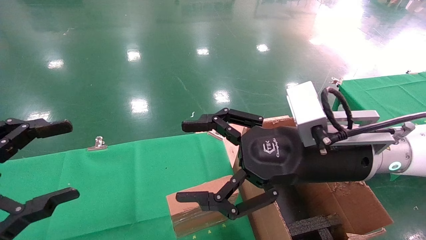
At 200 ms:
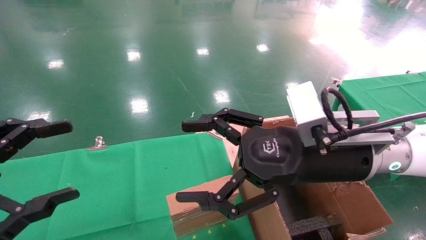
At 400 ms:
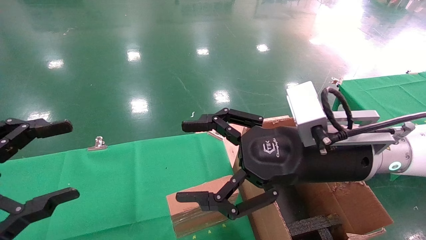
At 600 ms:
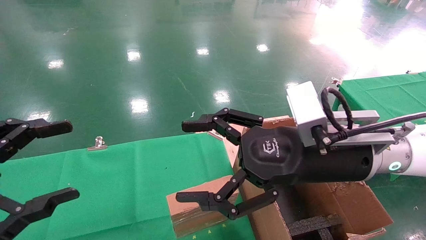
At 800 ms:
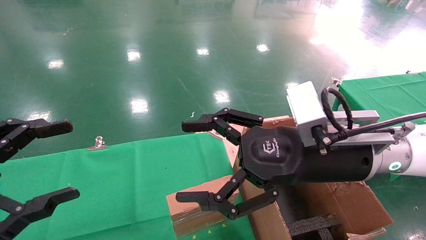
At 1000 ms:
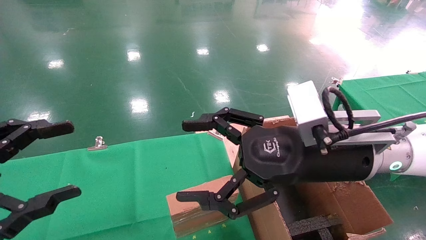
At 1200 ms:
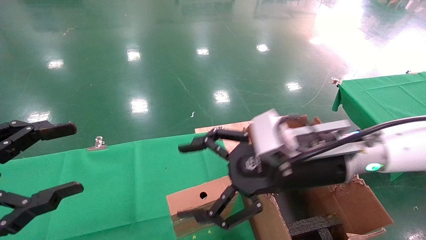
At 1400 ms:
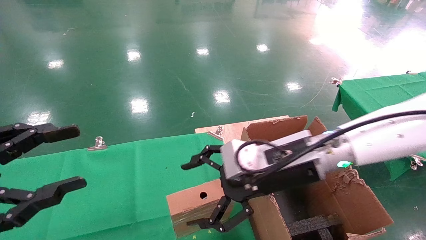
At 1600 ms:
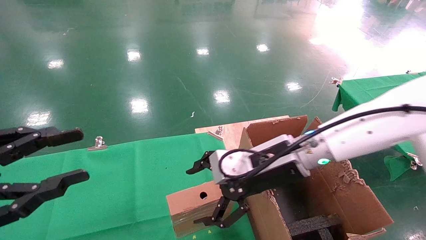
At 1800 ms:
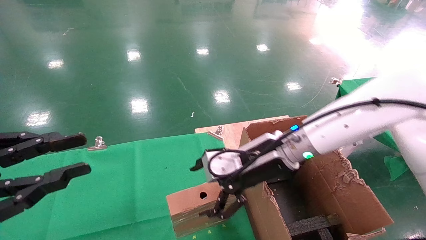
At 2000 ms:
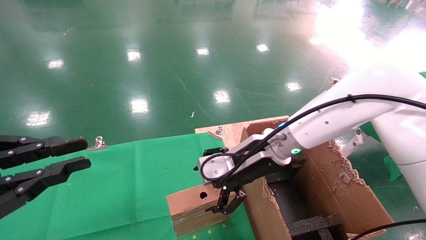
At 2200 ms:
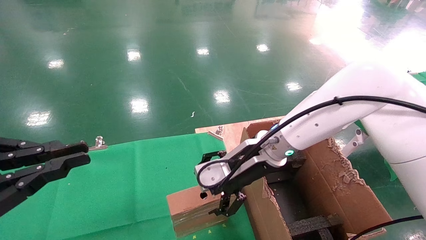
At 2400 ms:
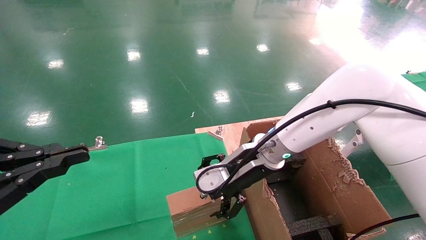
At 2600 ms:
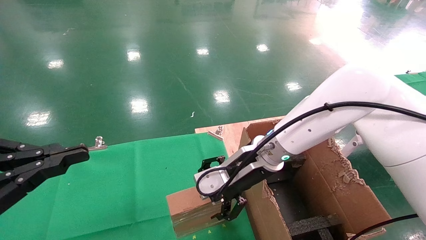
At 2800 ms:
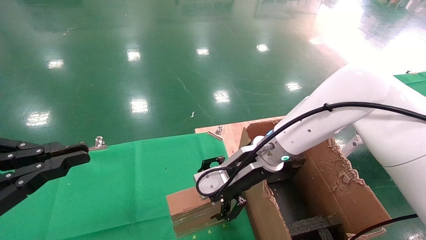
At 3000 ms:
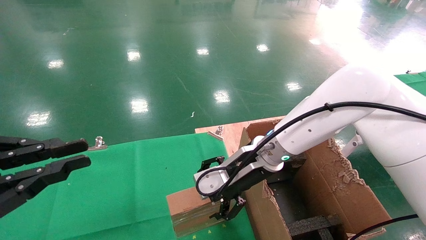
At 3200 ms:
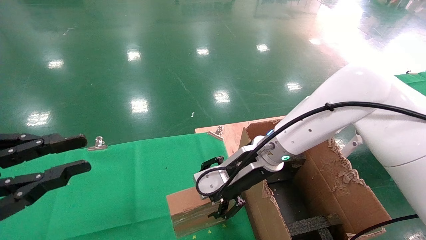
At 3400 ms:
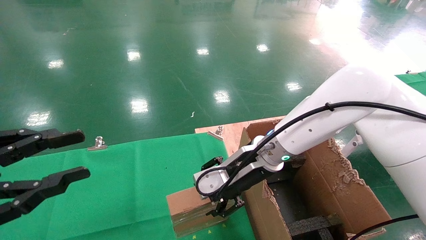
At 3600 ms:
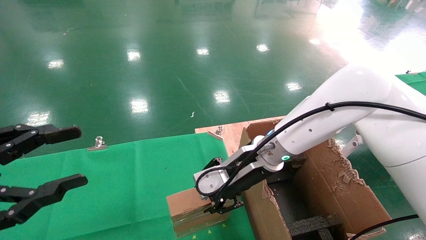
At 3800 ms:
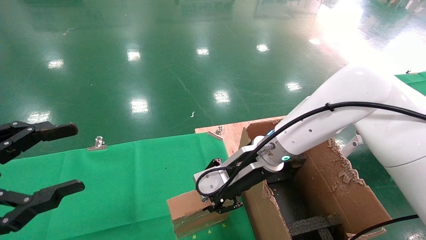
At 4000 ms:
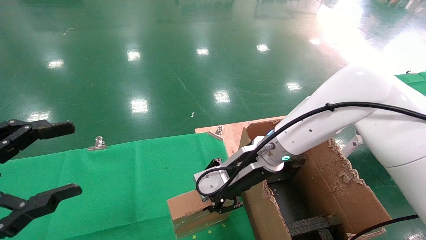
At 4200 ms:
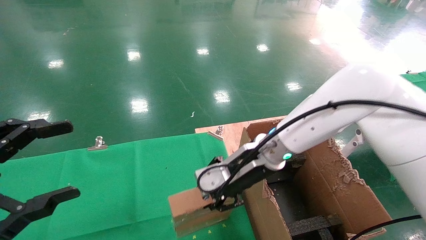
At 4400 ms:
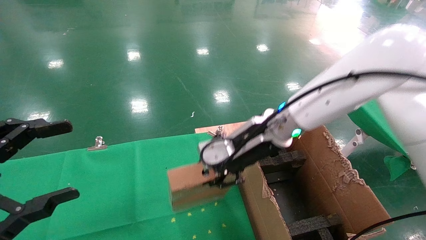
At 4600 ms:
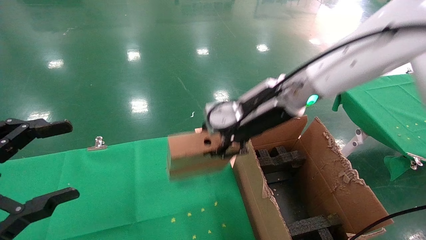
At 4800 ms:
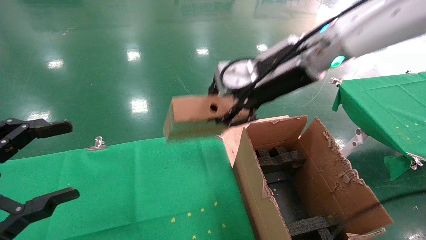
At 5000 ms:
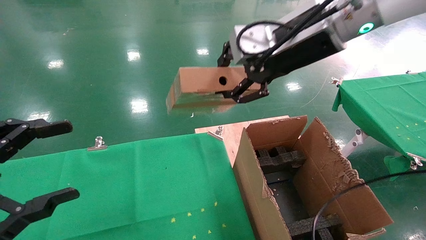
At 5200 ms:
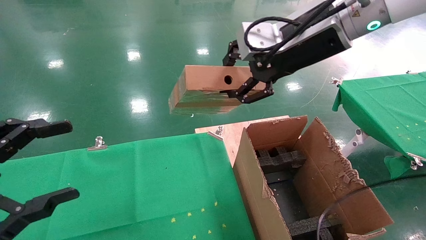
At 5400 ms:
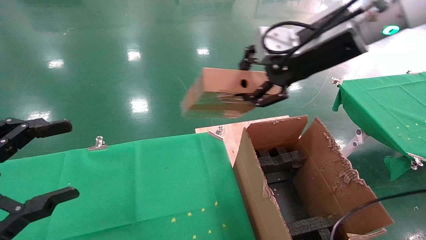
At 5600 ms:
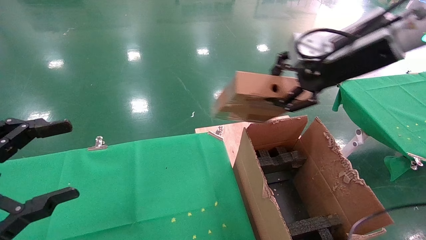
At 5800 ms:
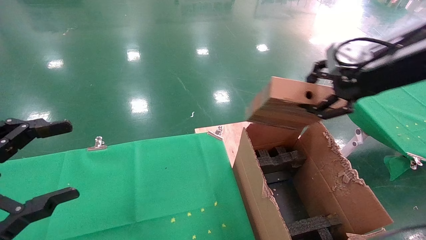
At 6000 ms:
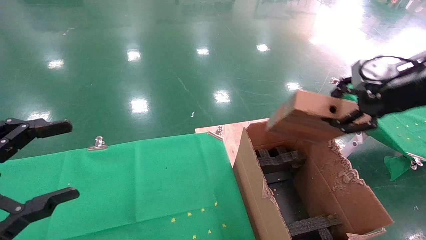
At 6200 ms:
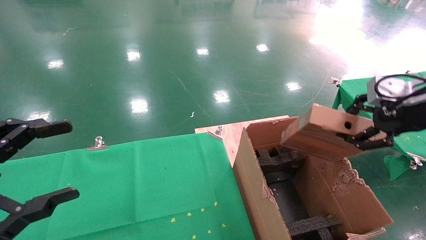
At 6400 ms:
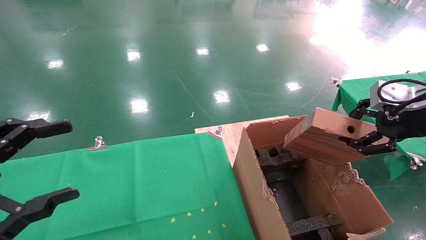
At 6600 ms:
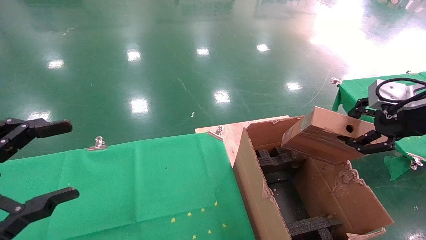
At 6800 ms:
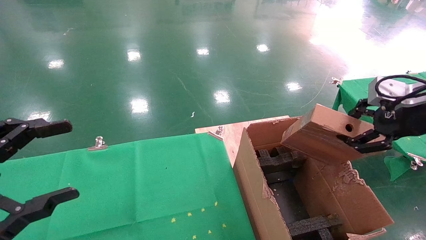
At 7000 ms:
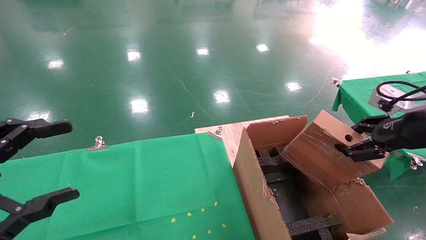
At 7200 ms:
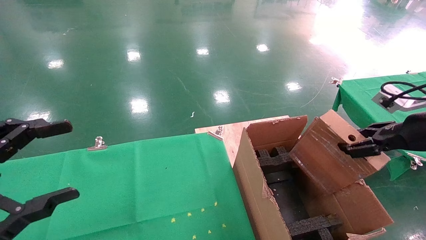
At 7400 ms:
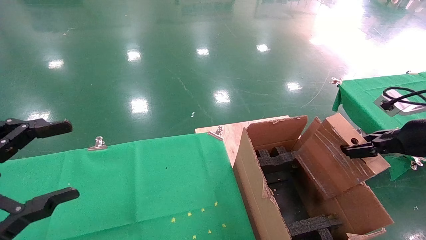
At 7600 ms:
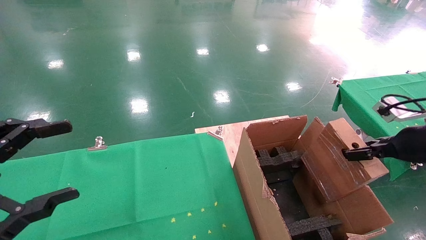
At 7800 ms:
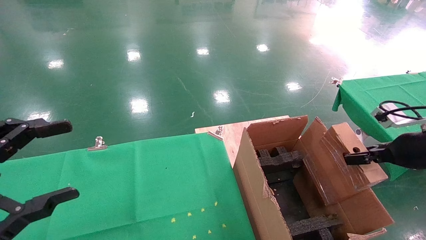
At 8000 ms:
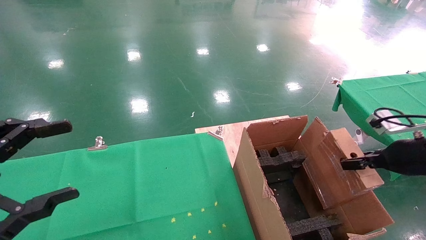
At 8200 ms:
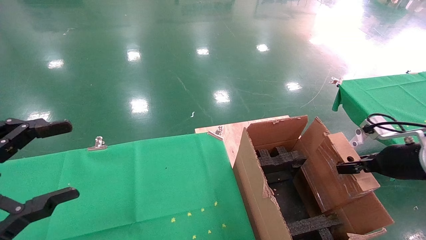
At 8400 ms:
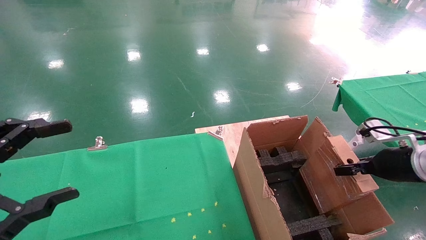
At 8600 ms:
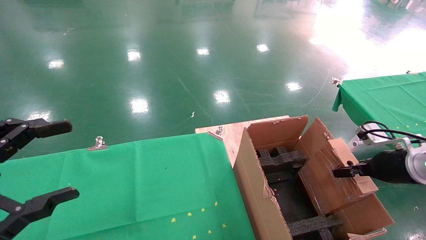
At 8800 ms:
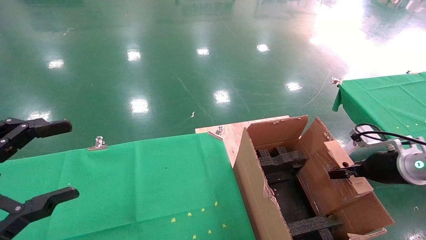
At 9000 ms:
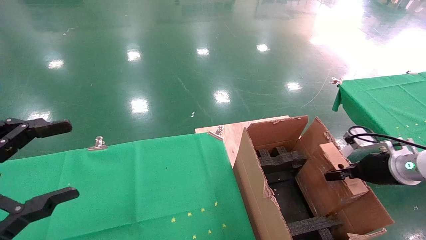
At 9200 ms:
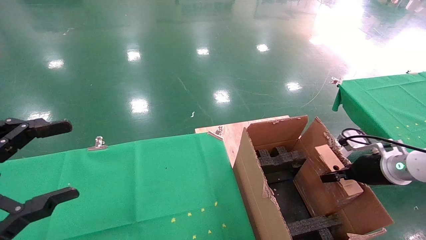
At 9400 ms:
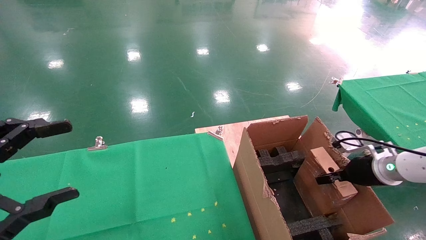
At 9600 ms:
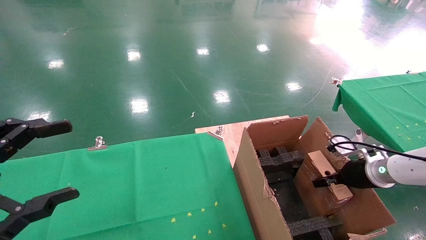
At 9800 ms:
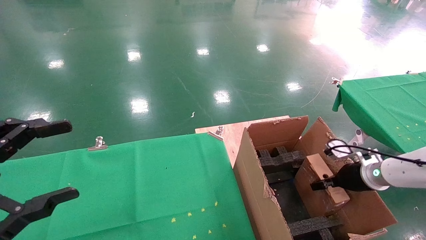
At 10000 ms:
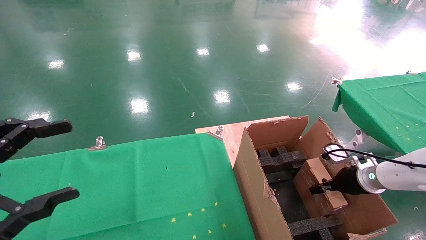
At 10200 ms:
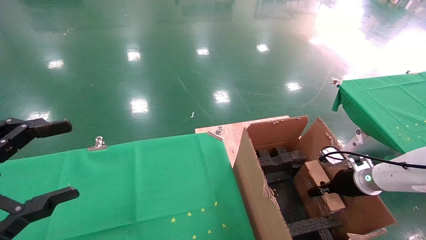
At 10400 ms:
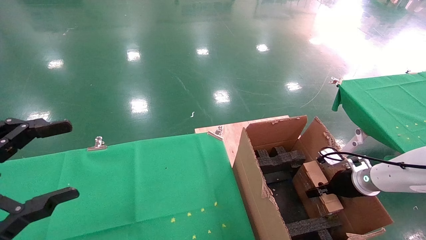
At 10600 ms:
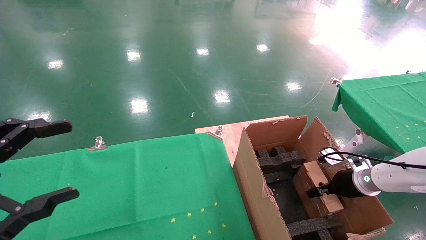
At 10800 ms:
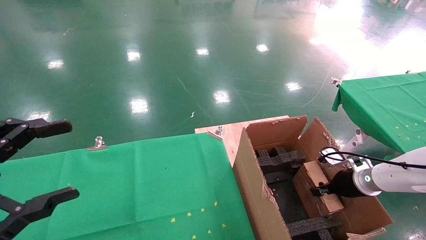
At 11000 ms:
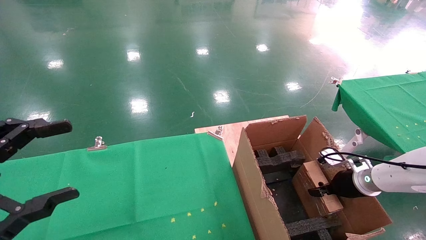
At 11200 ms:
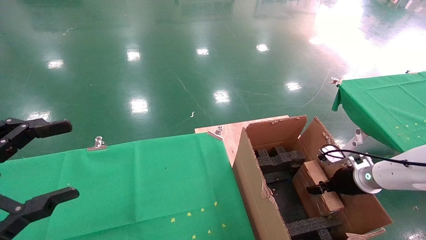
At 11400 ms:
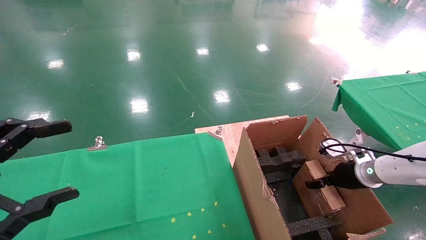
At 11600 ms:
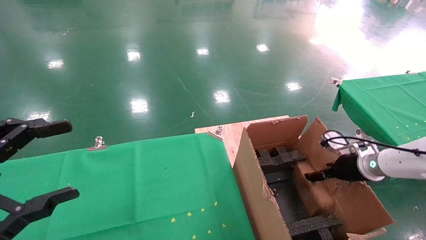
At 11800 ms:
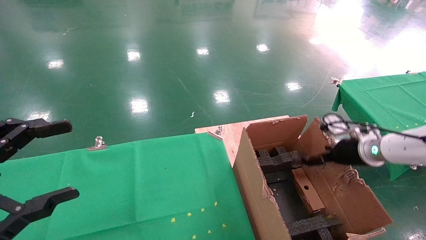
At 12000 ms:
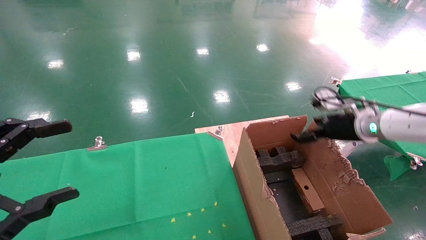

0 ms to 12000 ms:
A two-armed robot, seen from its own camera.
Task of the whole recording: using a robotic arm to pick up a cardboard box and palace it the carton.
Step, 1200 ms to 3800 ms: Pick up the mouse and the power cord paper box.
0 ms to 1600 ms: The left gripper closes its fingers. Meanwhile the right gripper is displaced forward by about 10 cm.
1600 ms to 3000 ms: The left gripper closes up; the right gripper ends up about 5 cm from where it was.
3000 ms to 4400 ms: The left gripper opens up. The right gripper shifts about 5 cm upward, and closes.
4400 ms to 6000 ms: The right gripper is displaced to the right by about 25 cm.
6000 ms to 7600 ms: The right gripper shifts some 15 cm downward and to the right.
7600 ms to 9000 ms: The right gripper goes some 10 cm downward and forward.
9000 ms to 10400 ms: The right gripper is displaced downward and forward by roughly 10 cm.
10400 ms to 12000 ms: The right gripper heads upward, covering approximately 15 cm, and opens.

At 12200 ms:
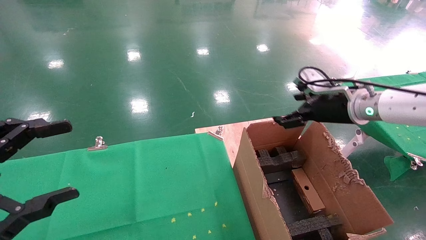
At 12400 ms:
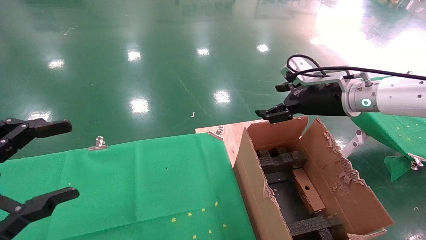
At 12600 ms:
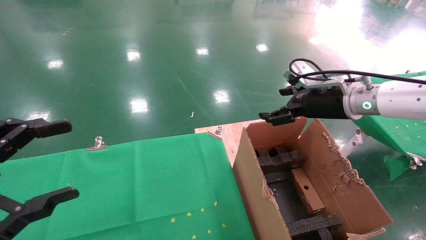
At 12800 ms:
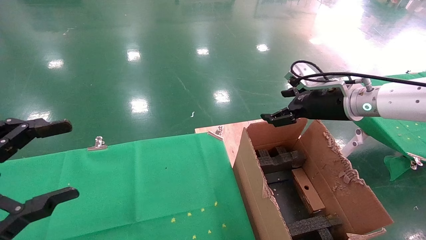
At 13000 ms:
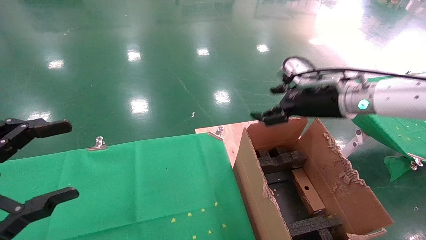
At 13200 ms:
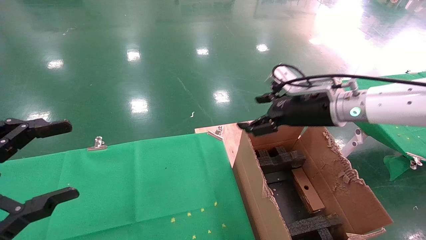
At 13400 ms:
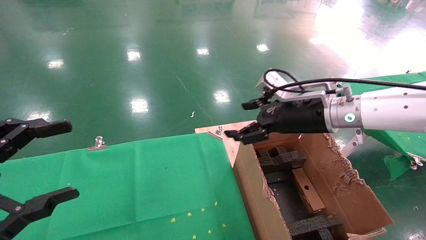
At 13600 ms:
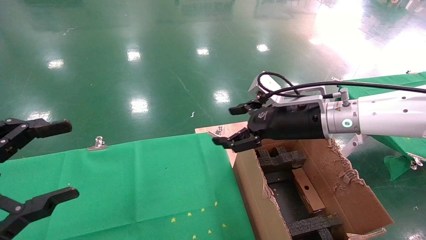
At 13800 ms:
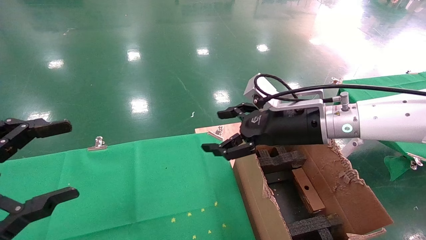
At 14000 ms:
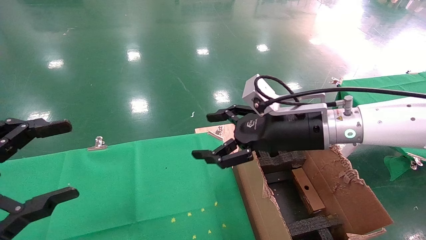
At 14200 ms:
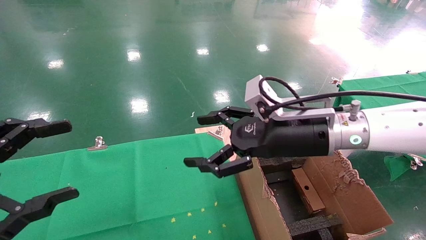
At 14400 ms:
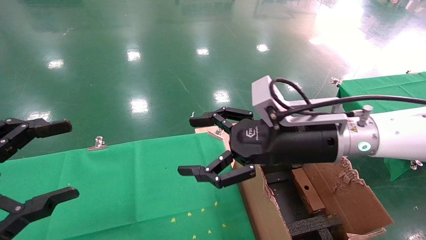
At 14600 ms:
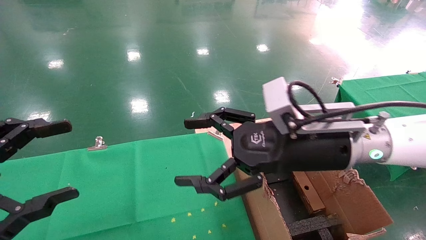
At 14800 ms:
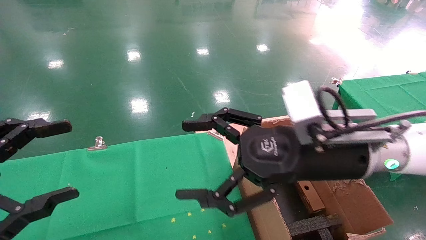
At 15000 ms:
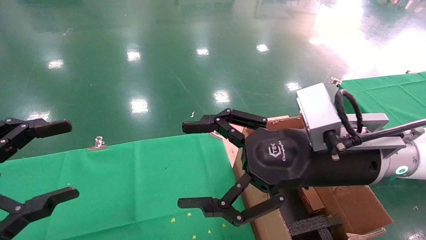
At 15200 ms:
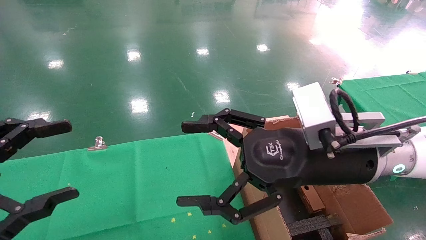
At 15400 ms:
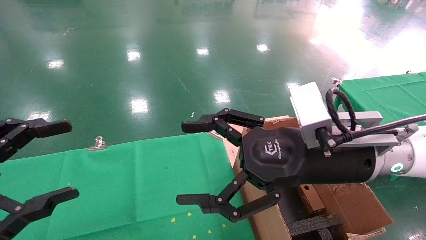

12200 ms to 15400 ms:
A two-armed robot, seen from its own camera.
Task of the whole recording: using a robotic arm to pick up a cardboard box and palace it the carton.
12200 ms to 13800 ms: The right gripper heads to the left, covering approximately 15 cm.
13800 ms to 15400 ms: The right gripper travels backward by roughly 10 cm.

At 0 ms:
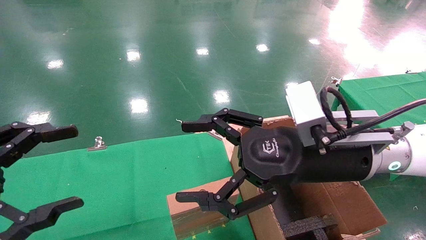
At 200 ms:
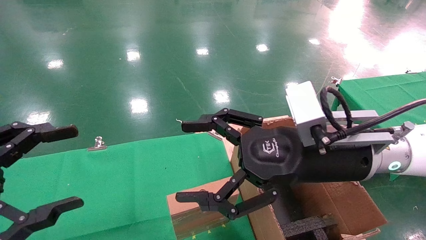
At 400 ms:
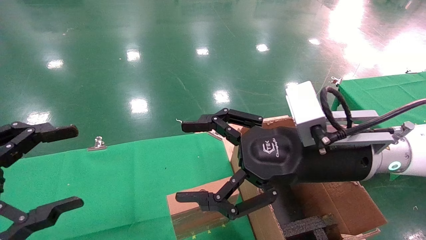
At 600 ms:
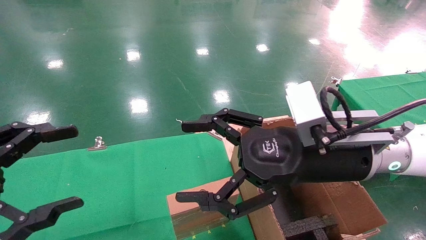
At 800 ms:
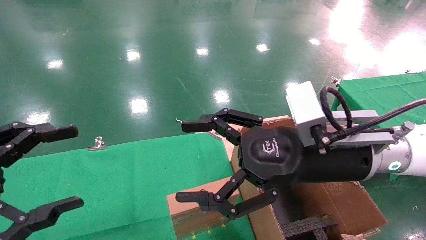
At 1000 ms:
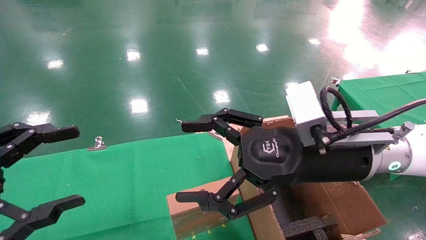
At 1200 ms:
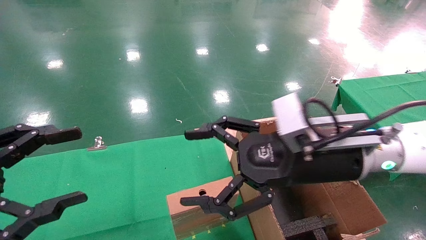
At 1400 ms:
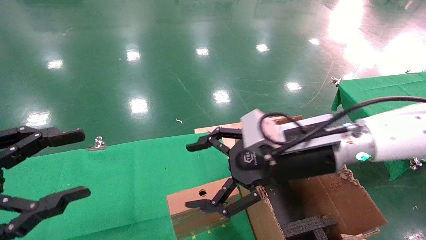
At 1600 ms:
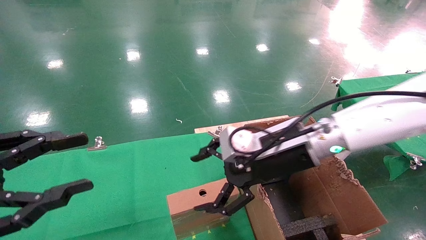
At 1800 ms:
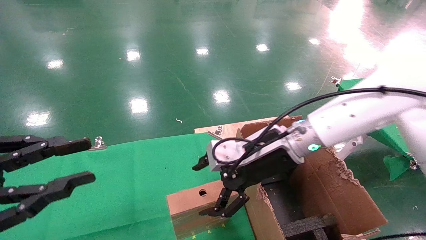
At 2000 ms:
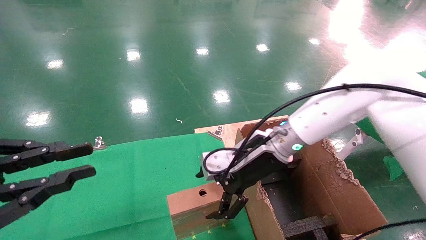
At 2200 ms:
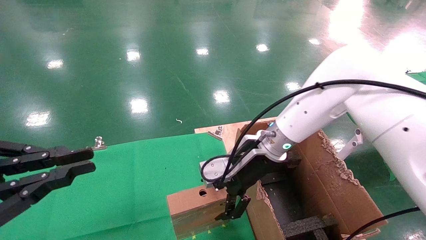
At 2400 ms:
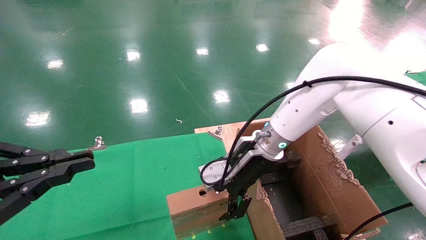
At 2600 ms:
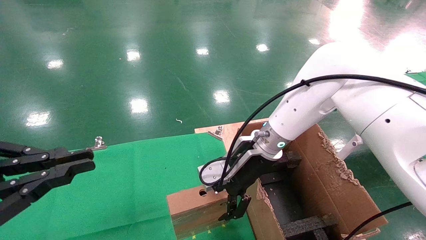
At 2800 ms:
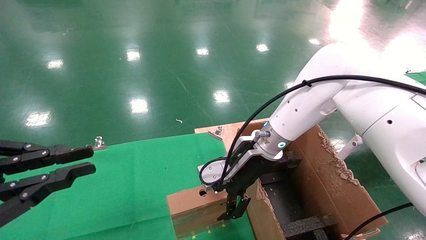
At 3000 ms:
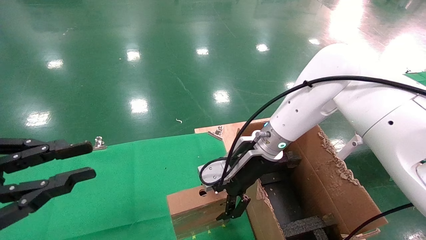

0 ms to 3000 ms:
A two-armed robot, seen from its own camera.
Task of the whole recording: using a robotic arm to pick up a cardboard box and palace it the carton.
0 ms to 1600 ms: The left gripper closes its fingers. Meanwhile the right gripper heads forward, covering roughly 10 cm.
1600 ms to 3000 ms: The left gripper closes. The right gripper is displaced forward by about 5 cm.
